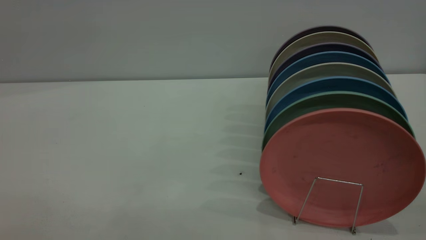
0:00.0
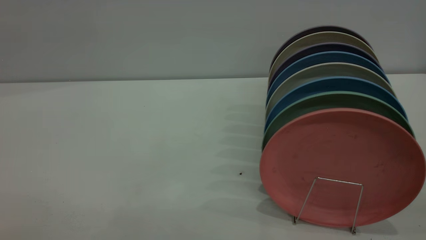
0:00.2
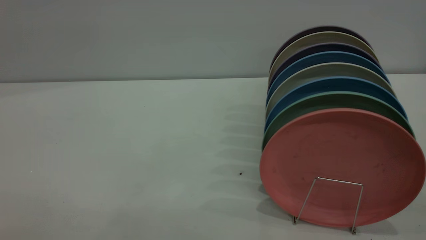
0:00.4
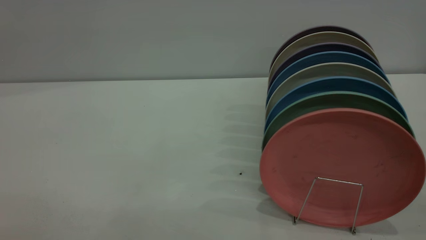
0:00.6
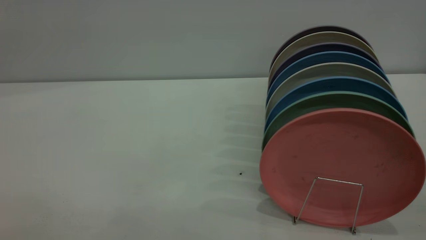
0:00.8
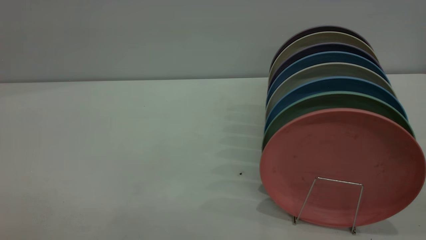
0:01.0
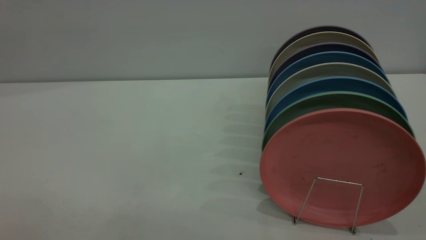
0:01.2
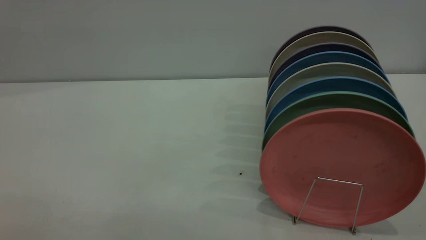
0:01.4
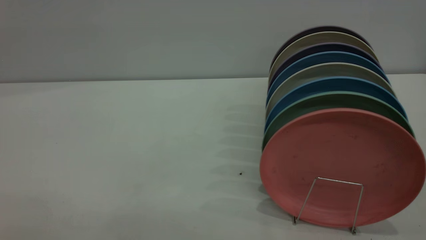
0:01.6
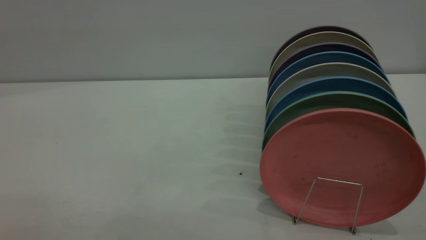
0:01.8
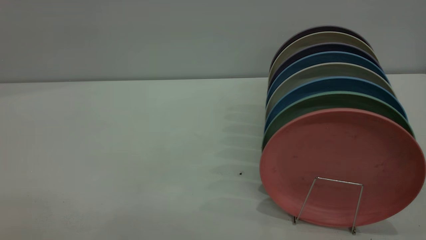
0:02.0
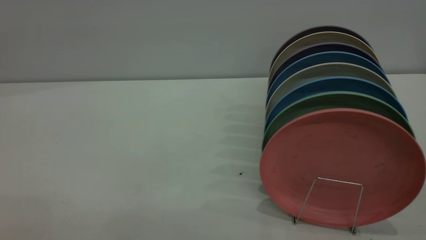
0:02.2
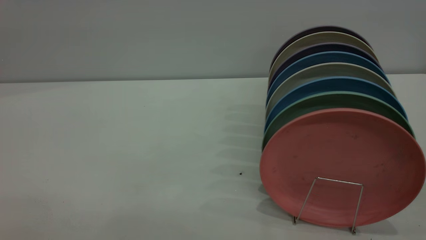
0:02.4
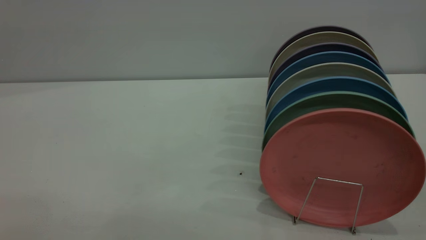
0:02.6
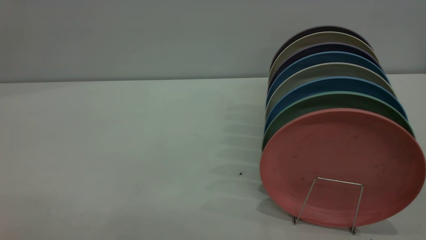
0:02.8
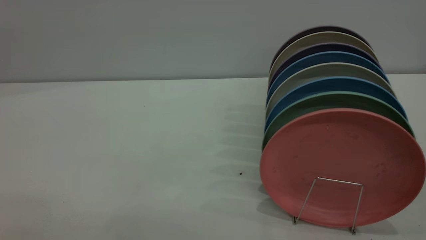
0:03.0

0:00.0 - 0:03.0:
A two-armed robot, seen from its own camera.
Task of the whole recording: put the plate on the plate rack.
0:01.6 - 0:03.0: Neither gripper changes place.

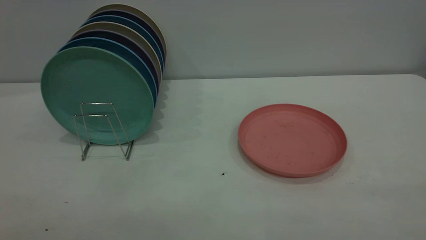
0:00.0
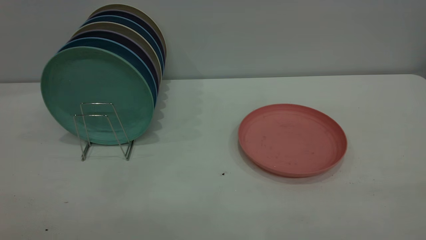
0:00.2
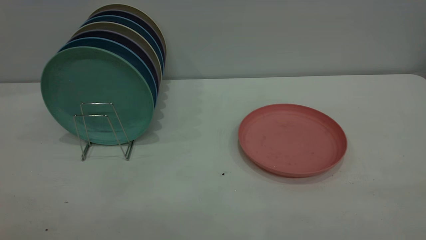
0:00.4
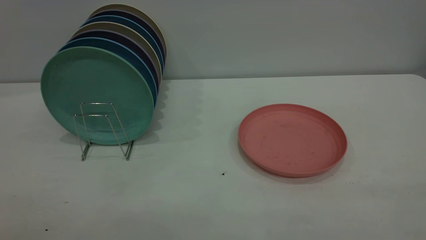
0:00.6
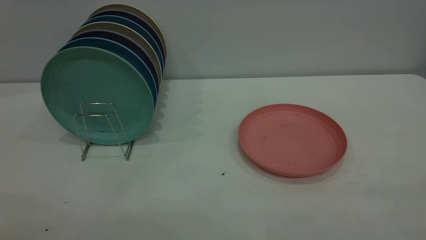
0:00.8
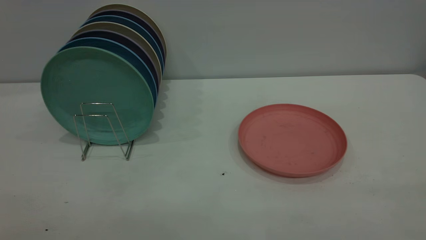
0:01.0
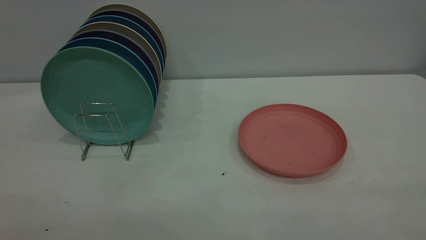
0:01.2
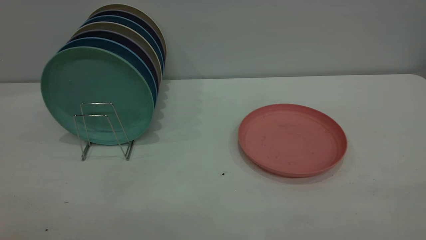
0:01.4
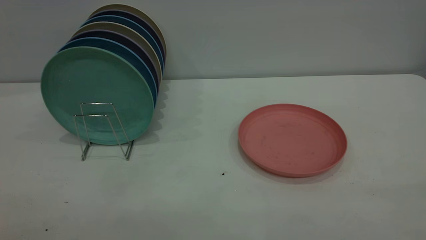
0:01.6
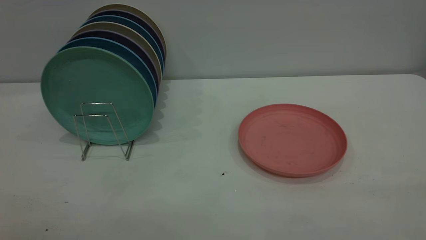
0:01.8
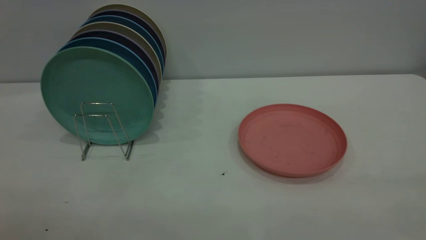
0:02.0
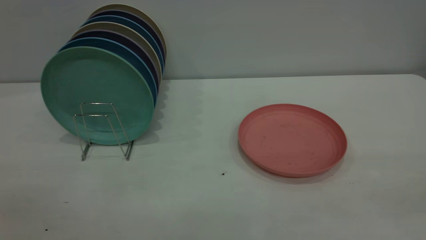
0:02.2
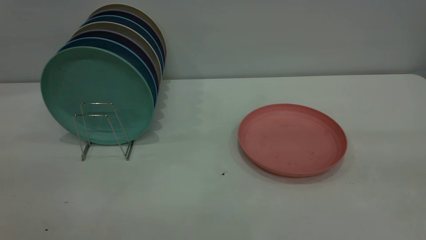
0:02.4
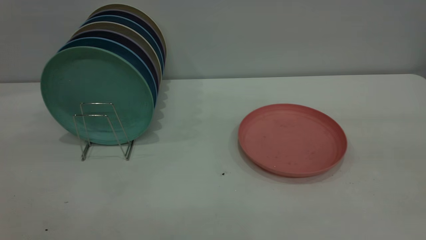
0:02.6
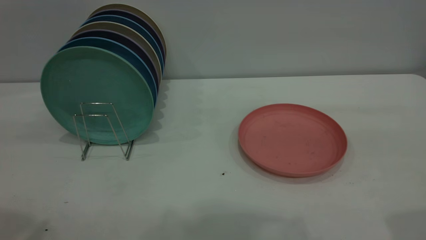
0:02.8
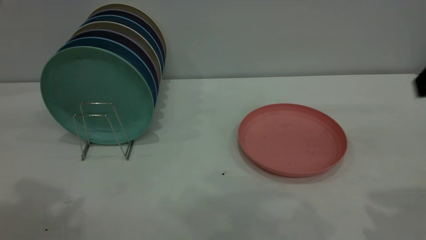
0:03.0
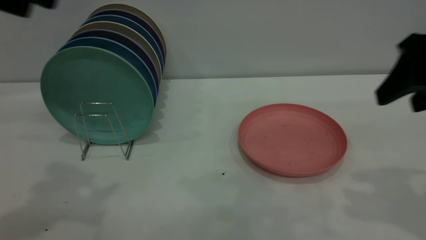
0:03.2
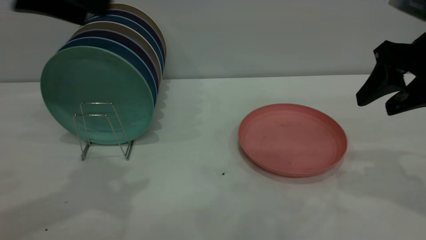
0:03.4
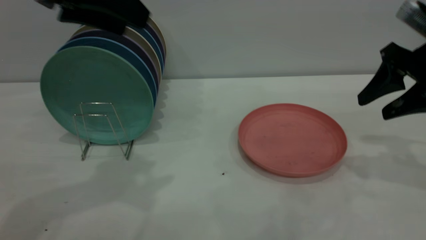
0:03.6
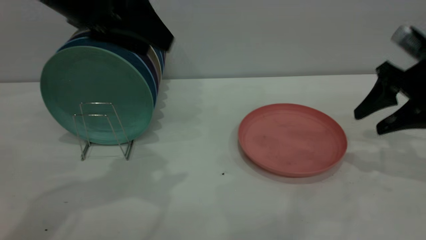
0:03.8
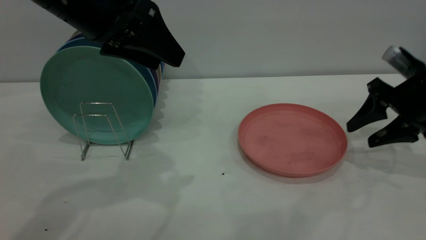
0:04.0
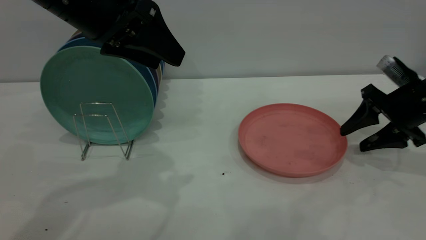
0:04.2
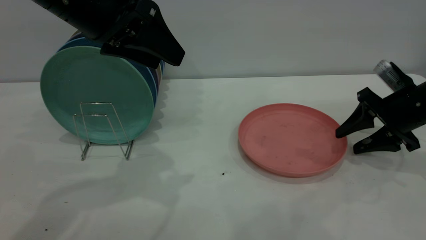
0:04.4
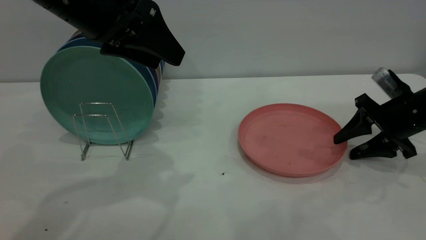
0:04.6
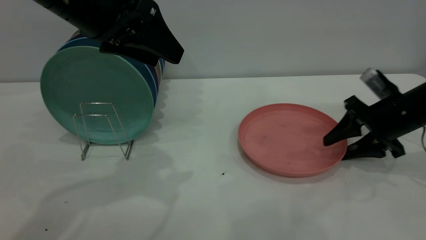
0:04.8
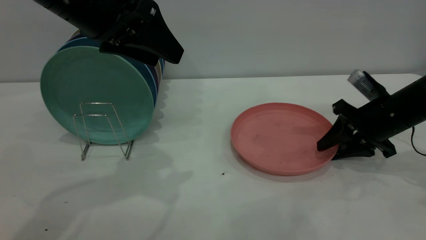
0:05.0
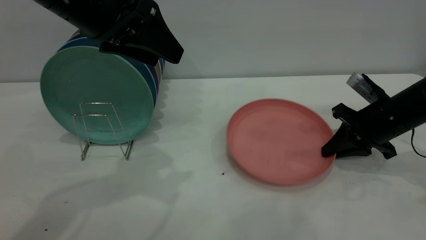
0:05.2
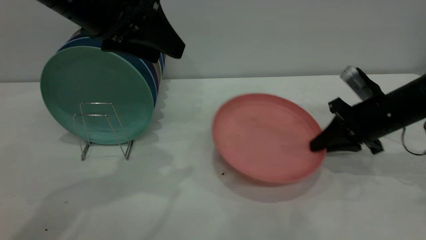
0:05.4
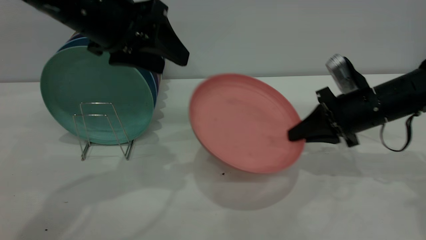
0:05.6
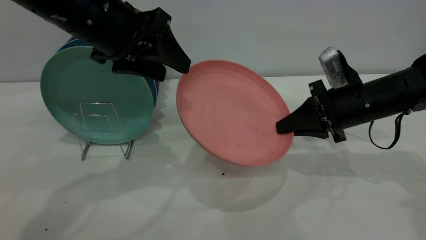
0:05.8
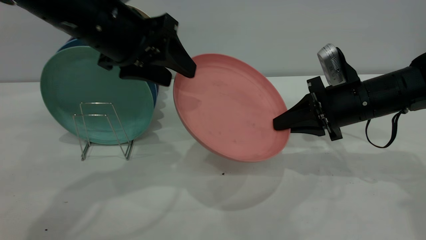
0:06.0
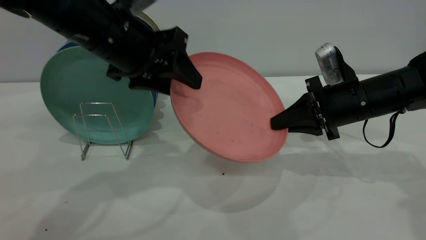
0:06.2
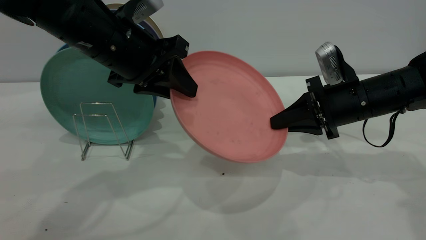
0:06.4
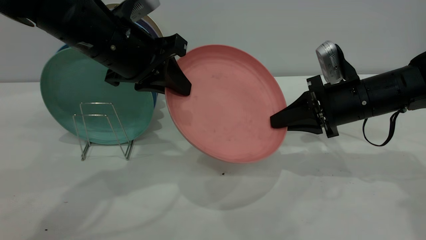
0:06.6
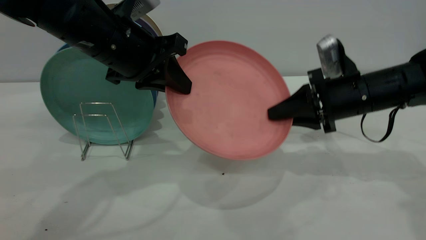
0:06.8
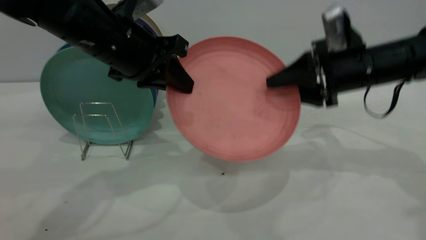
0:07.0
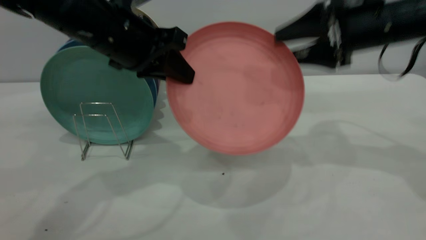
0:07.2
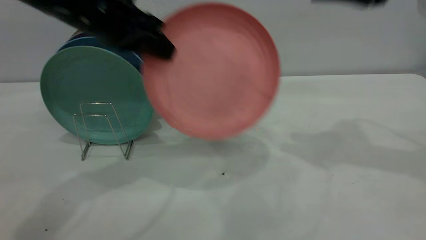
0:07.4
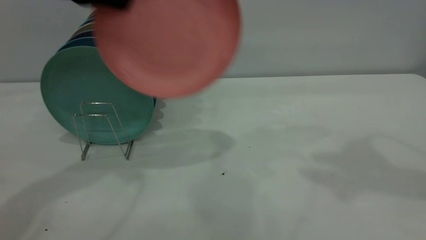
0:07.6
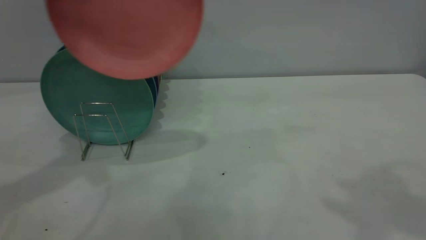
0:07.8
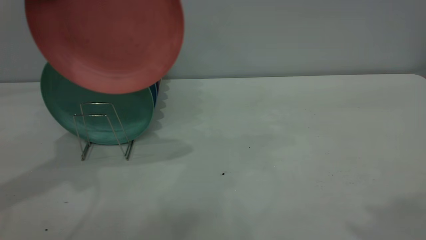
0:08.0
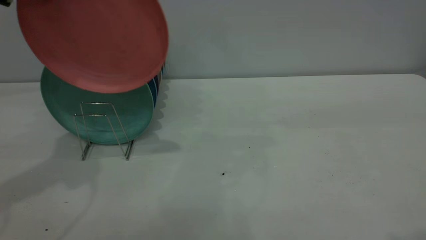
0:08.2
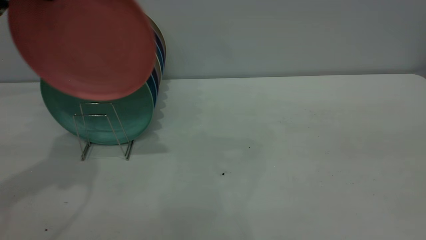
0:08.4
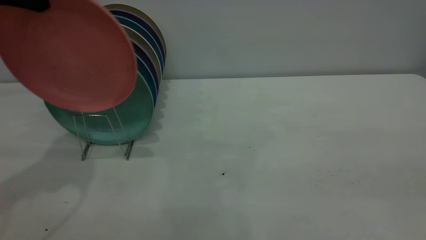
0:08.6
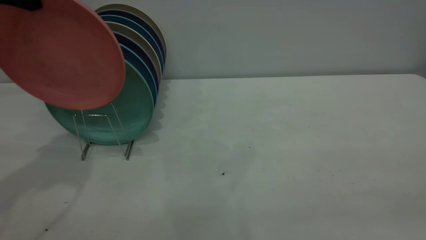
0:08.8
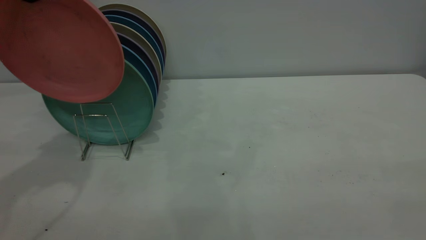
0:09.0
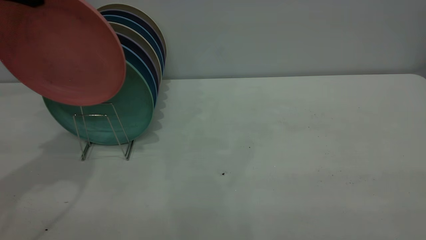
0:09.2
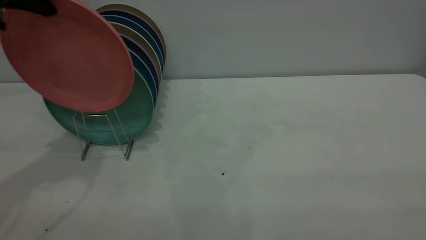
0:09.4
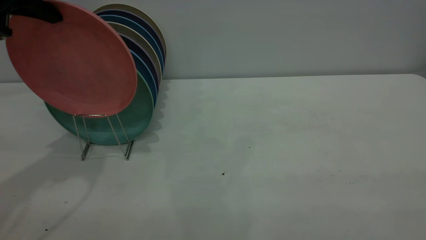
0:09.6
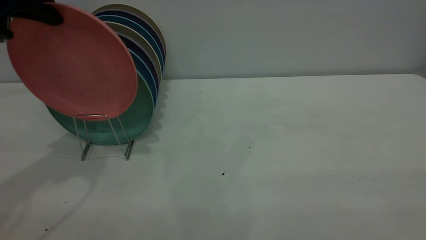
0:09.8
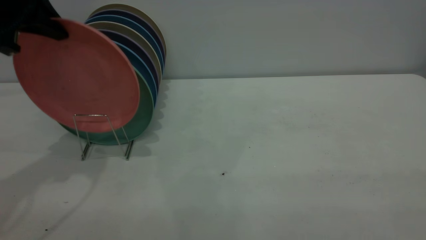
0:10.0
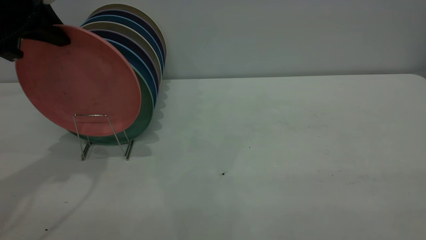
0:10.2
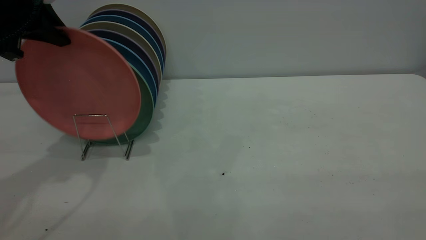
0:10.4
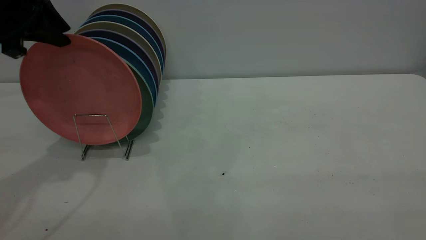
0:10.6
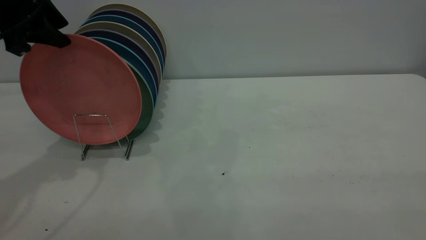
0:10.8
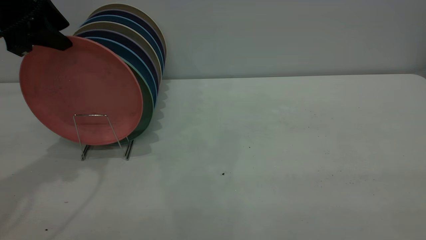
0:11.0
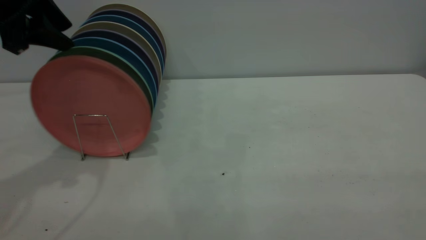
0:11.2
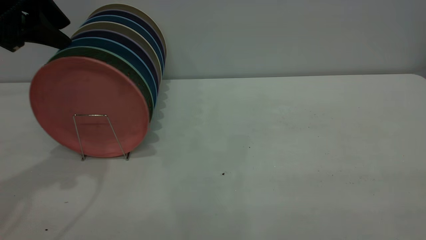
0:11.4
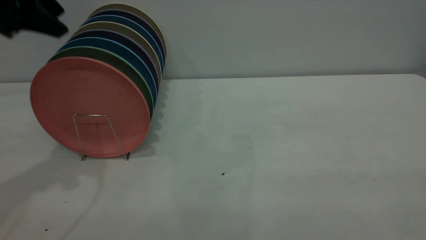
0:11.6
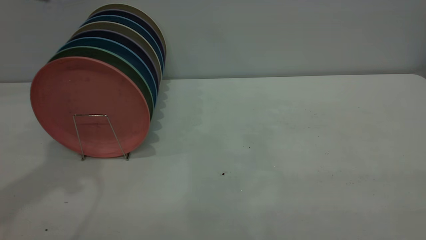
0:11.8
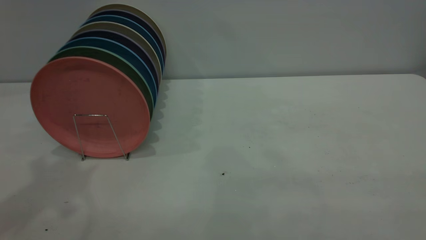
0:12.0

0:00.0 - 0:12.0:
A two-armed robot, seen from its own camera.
Task of the whole recording: the right gripper grasp the pink plate, the right gripper pass the pink plate to the left gripper, and the left gripper place the pink plate on the plate rack.
Step, 0:00.0 - 0:05.4: Pick up the plate with the right gripper.
Step, 0:05.6 - 0:07.2: Pass the plate from the right gripper to the left gripper.
Step, 0:07.4 - 0:11.6: Place the plate on the shelf.
0:00.0 - 0:01.6: The two grippers keep their place.
0:03.0 - 0:04.4: The left gripper goes about 15 cm to the right, downward and forward; the right gripper heads downward and forward, covering roughly 25 cm.
0:04.4 - 0:06.0: The right gripper goes approximately 10 cm to the left, and closes up.
0:06.0 - 0:07.6: The right gripper shifts some 30 cm upward, and opens. The left gripper shifts about 15 cm upward and to the left, and closes its fingers.
0:07.6 - 0:09.0: The right gripper goes about 30 cm backward, while the left gripper goes approximately 5 cm to the left.
0:09.0 - 0:10.4: The left gripper is displaced downward by about 5 cm.
0:10.4 - 0:12.0: The left gripper is displaced upward and backward by approximately 15 cm, and opens its fingers.
